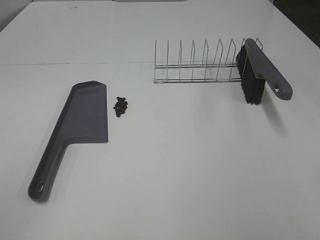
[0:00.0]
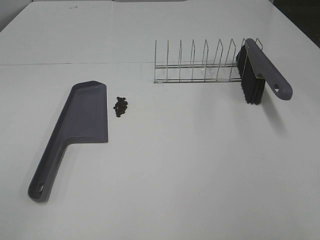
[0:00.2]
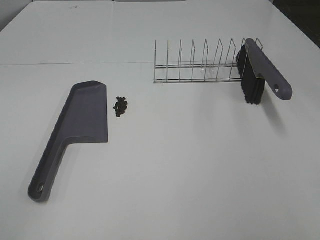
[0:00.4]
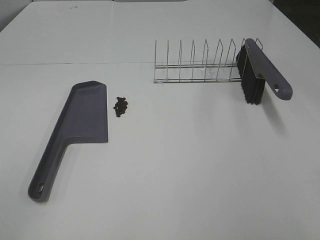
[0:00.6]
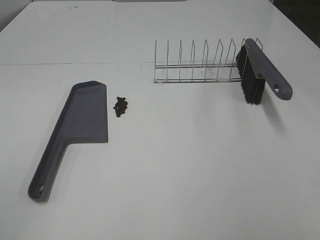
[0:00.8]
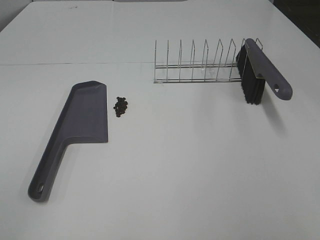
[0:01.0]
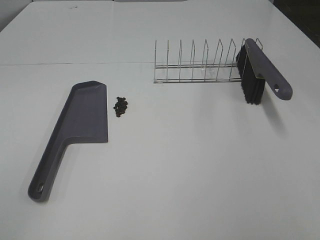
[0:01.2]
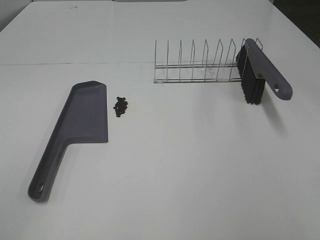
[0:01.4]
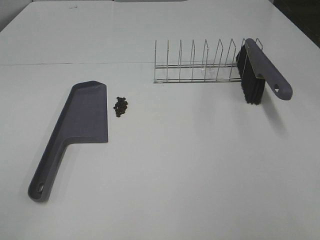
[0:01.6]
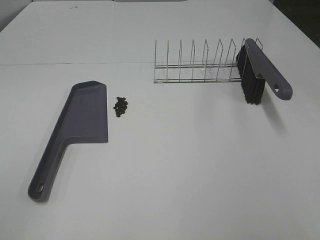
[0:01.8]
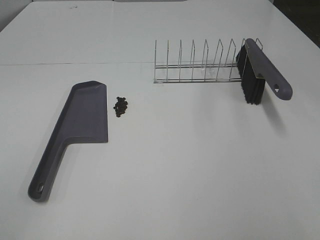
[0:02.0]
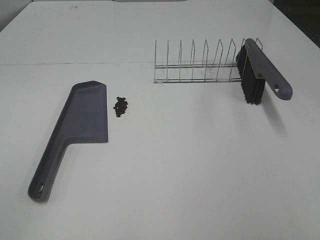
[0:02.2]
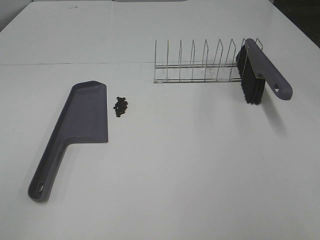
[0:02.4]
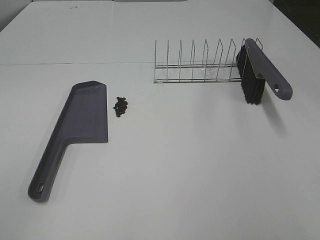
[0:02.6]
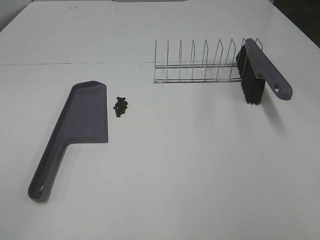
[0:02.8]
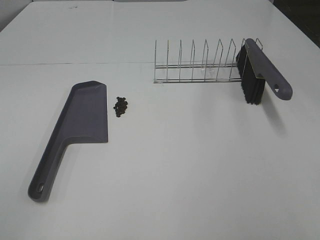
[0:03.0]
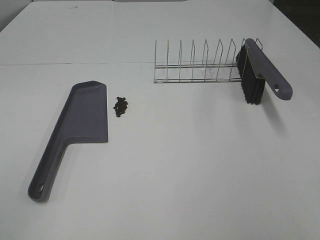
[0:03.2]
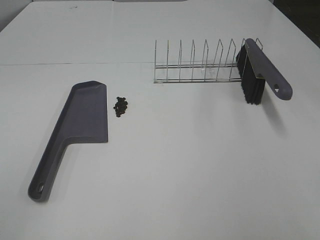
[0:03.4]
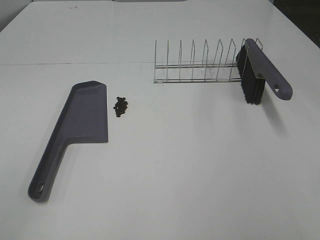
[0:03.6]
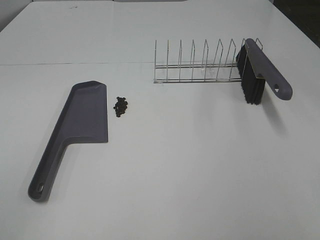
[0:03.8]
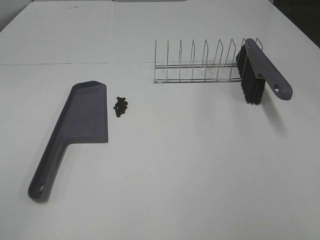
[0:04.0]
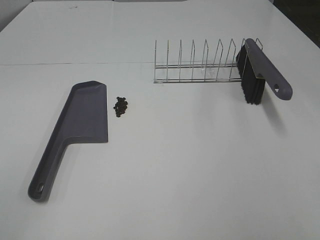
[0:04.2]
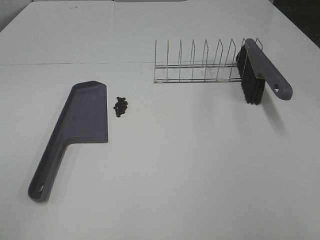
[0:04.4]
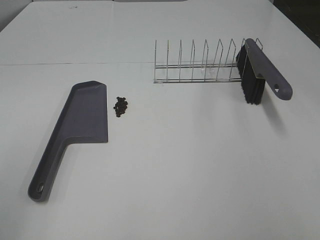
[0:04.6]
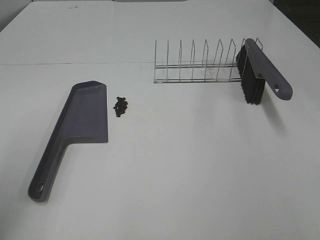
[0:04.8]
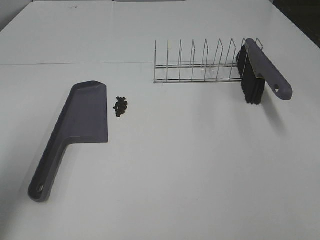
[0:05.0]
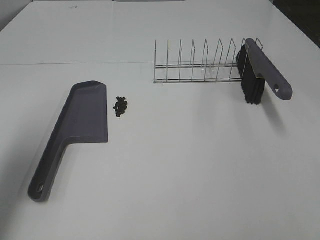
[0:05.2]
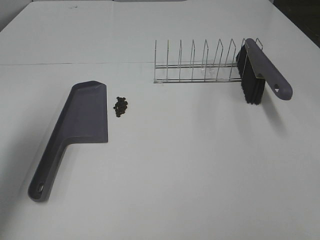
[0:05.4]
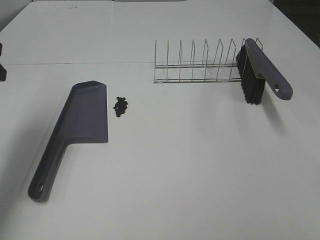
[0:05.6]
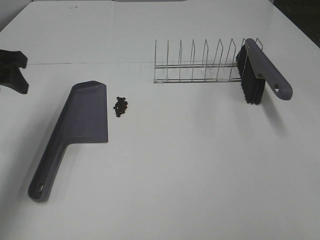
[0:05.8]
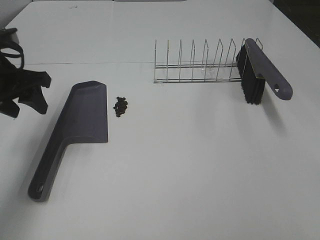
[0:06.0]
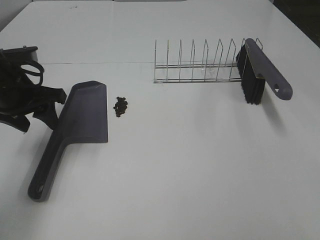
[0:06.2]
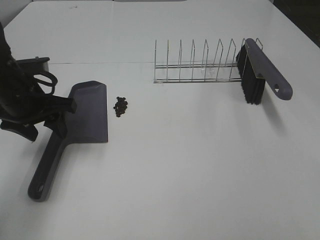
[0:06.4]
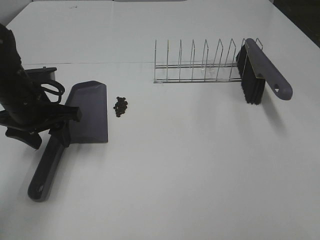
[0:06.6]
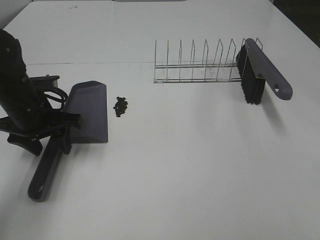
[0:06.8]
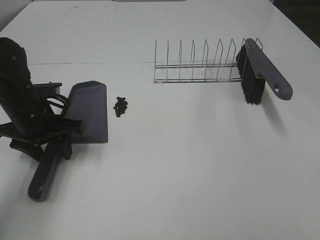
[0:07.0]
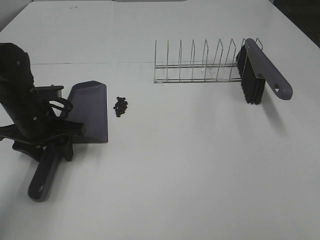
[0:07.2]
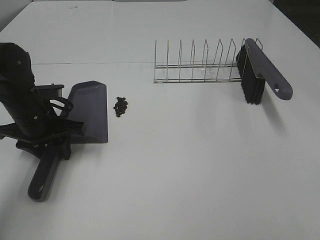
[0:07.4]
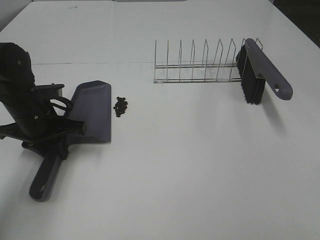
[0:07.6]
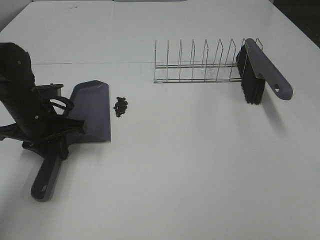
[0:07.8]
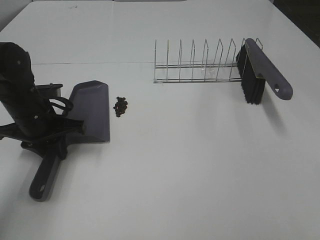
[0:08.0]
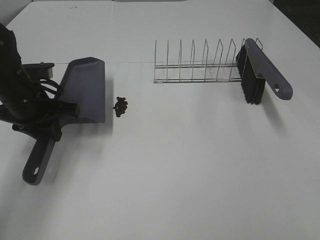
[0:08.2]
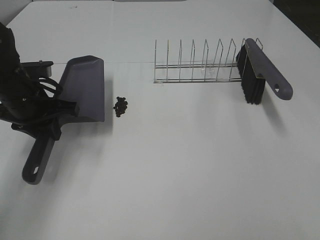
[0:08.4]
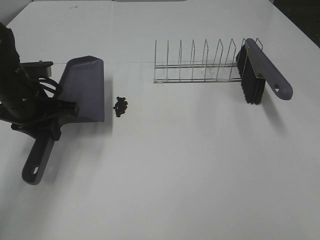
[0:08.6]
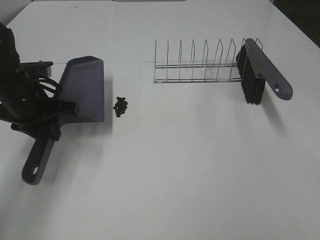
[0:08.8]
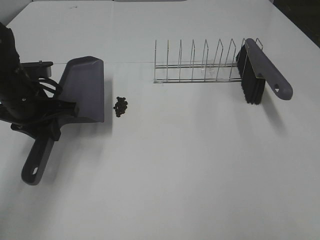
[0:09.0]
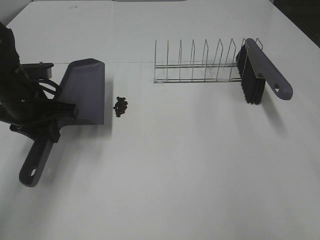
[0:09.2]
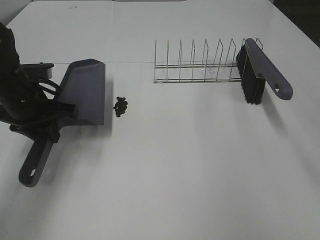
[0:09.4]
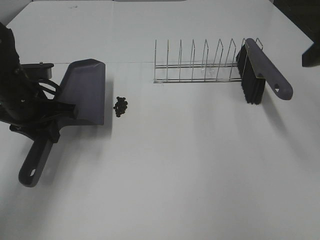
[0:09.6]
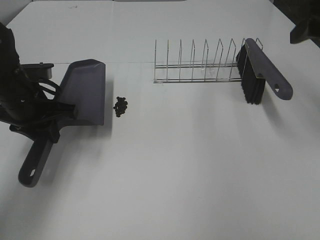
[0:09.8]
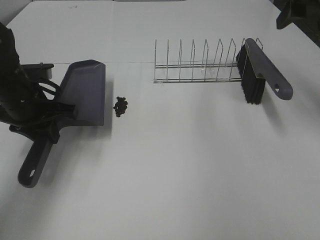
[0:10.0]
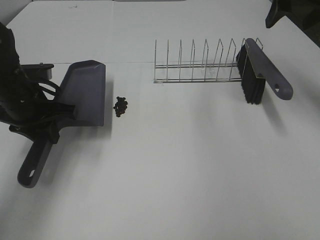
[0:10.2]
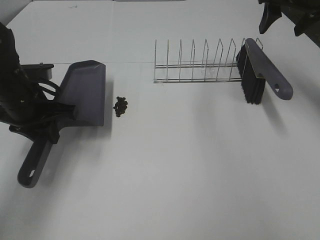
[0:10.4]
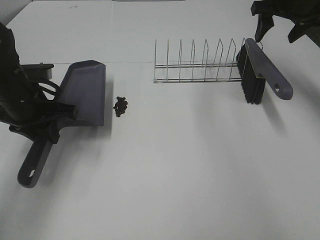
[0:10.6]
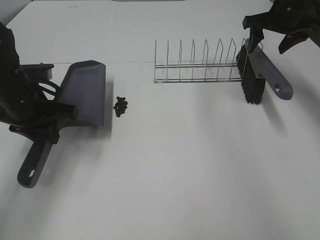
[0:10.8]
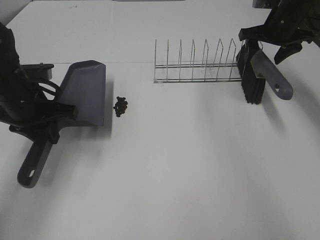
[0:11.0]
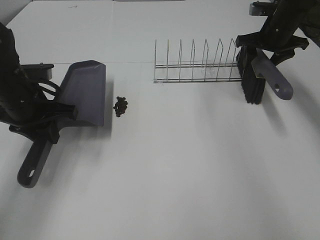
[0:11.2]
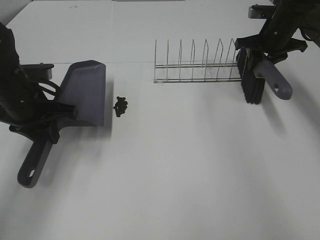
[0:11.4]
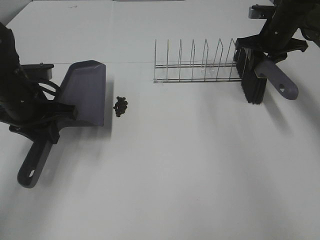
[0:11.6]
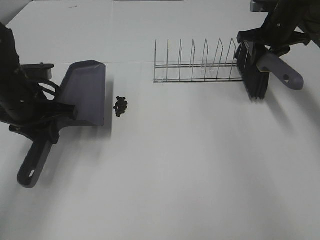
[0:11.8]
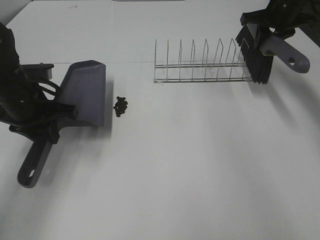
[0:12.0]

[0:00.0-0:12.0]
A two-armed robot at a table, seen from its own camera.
Task of the whole recording: Sweep Coffee Bean.
Step, 0:00.0 to 0:07.6: Left hand: grab the dustpan.
Step, 0:08.8 to 0:11.4: Right hand:grab the broom.
0:00.0 to 0:03.0: Neither gripper changes place.
0:04.4 to 0:06.0: The left gripper goes roughly 30 cm forward.
0:06.0 to 0:07.6: The left gripper goes some 10 cm downward, and closes up.
0:09.0 to 0:10.4: The right gripper moves forward, approximately 40 cm.
0:10.4 to 0:12.0: The right gripper shifts roughly 10 cm forward and downward, and closes.

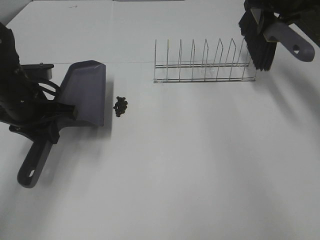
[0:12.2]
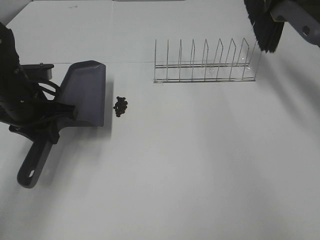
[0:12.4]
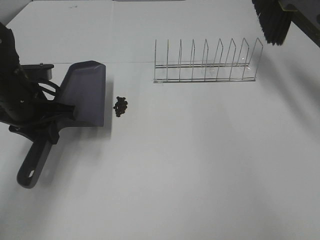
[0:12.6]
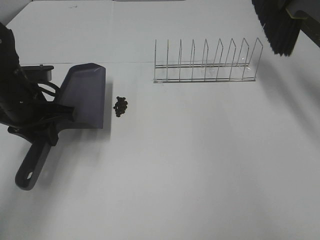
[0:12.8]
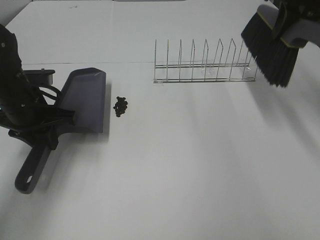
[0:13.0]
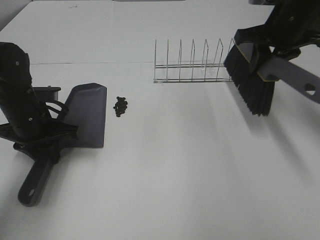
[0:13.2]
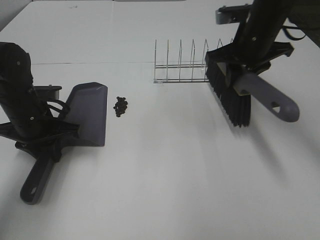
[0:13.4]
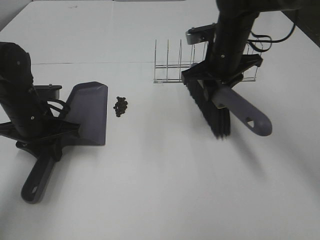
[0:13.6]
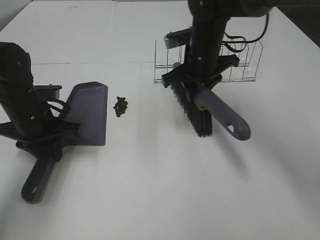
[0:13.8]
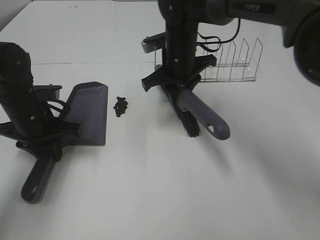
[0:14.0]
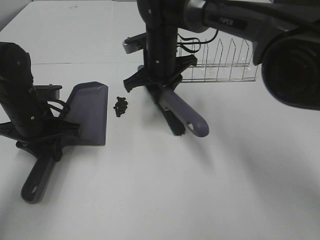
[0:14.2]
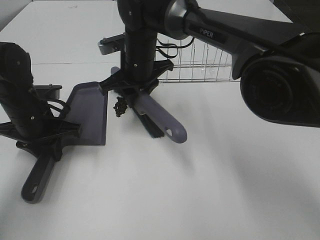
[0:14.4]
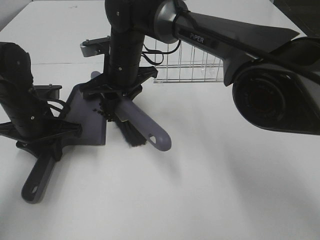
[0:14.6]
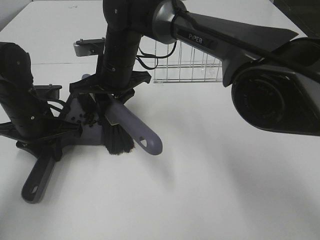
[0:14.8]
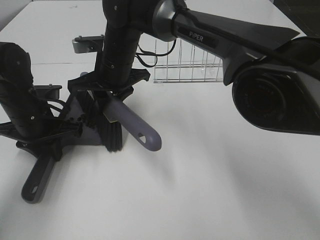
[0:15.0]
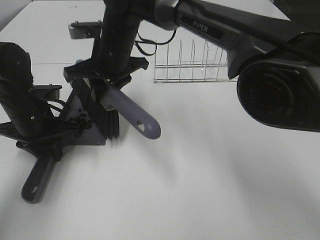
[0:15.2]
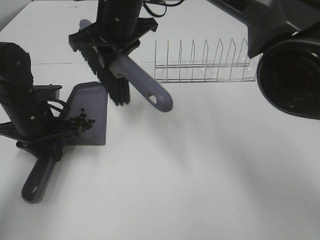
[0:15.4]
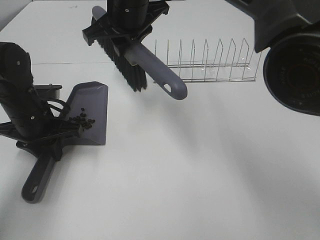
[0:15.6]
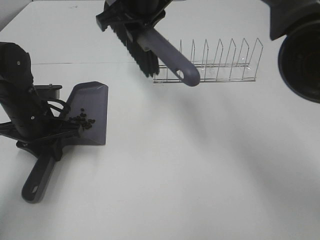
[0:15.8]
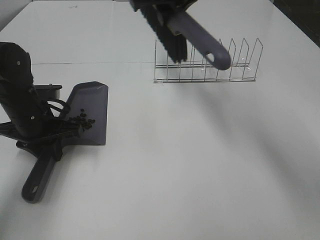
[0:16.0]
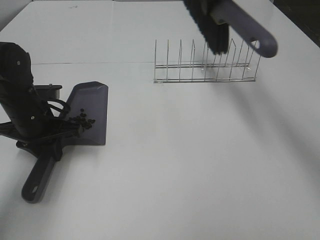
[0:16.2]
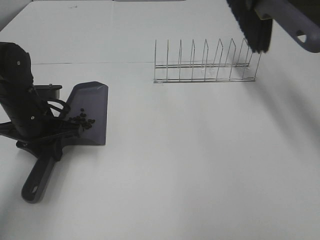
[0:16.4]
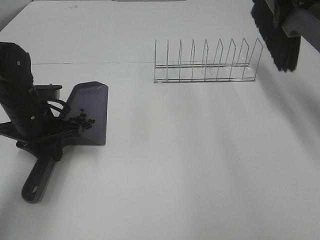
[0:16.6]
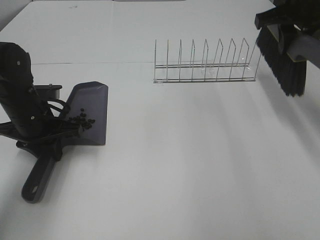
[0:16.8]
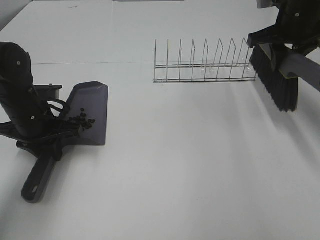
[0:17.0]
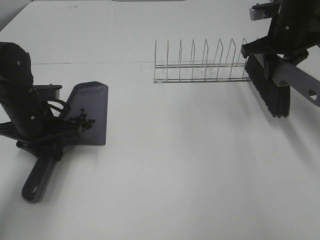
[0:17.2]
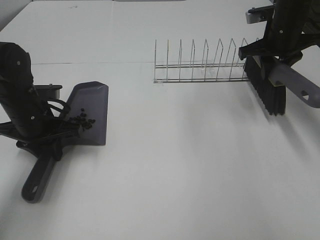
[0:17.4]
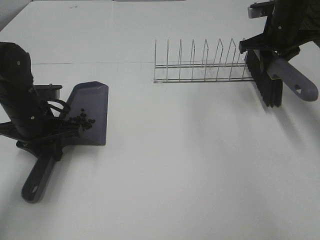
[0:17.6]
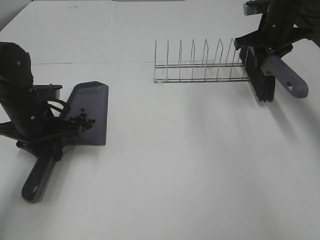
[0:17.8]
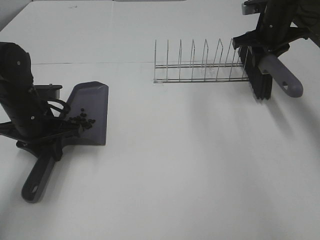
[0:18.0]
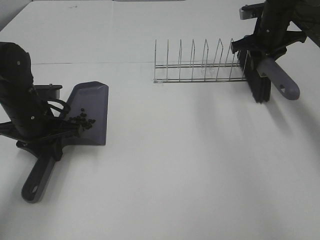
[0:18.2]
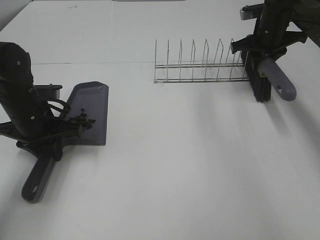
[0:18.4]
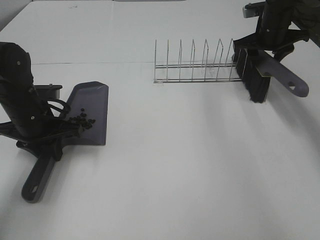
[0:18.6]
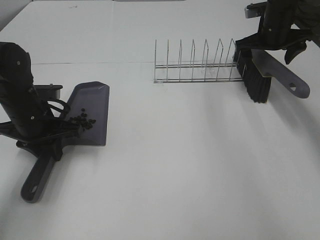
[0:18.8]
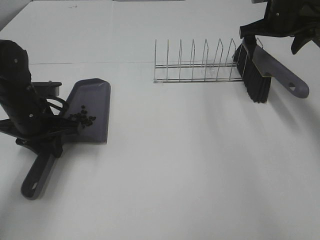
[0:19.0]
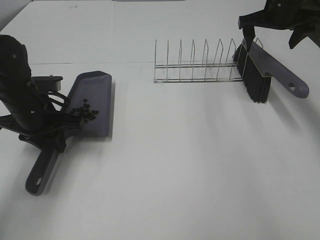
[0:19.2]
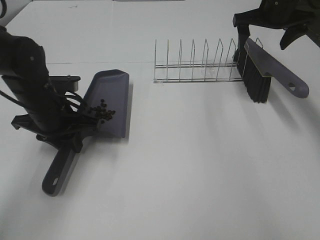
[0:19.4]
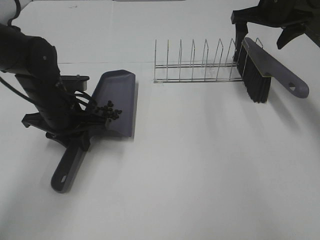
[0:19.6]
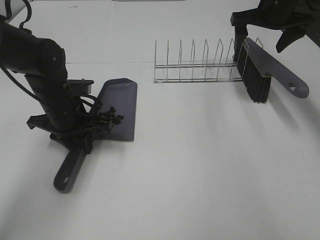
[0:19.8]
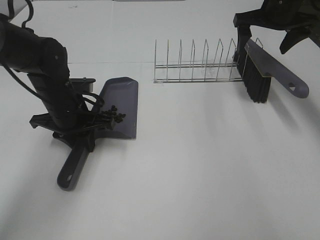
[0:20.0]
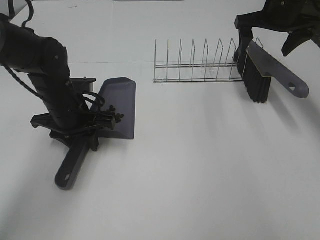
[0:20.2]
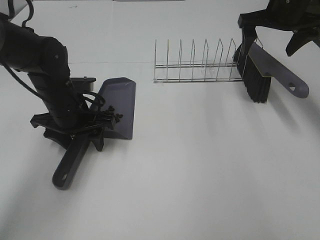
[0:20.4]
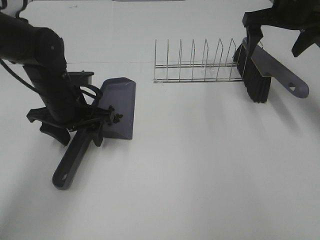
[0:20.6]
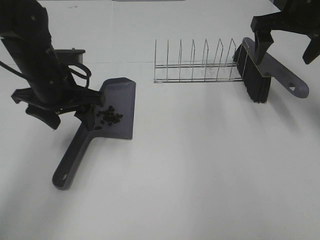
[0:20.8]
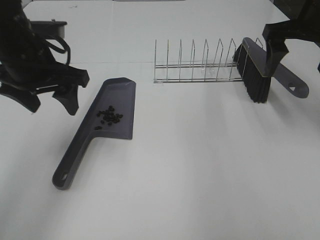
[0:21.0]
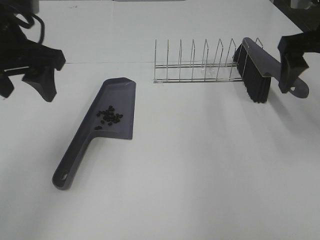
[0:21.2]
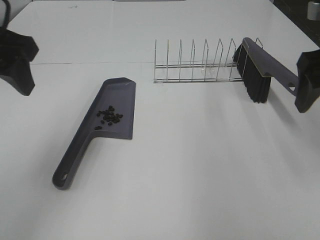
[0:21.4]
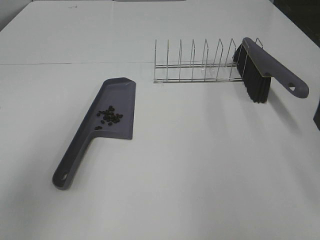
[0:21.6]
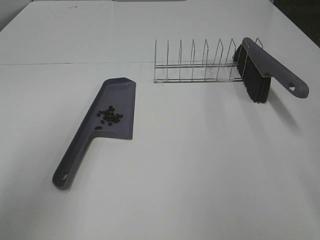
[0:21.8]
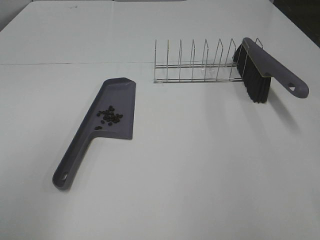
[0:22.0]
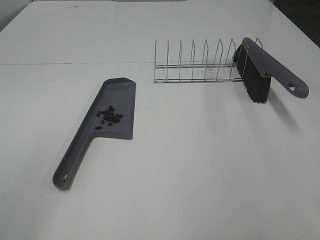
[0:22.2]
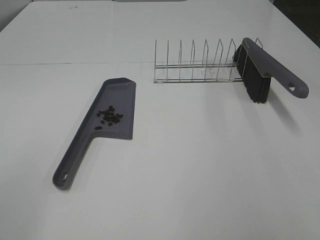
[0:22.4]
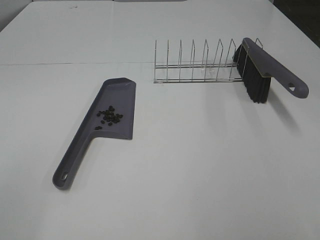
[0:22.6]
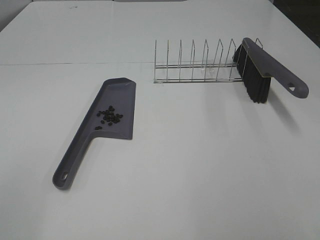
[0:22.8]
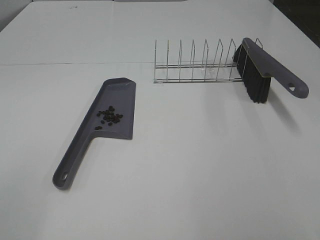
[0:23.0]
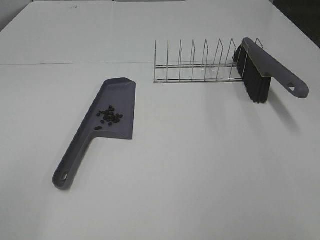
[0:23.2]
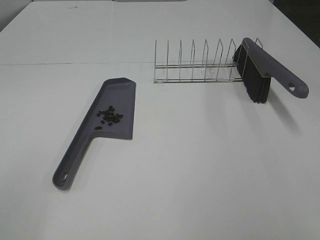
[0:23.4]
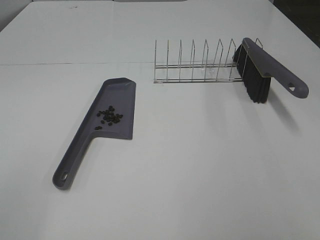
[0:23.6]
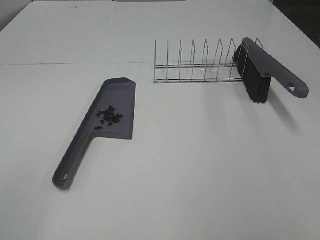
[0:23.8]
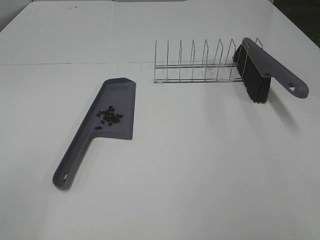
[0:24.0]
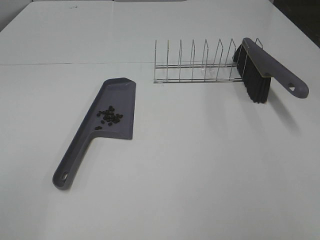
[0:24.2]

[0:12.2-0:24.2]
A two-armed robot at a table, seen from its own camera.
Task of the whole recording: Sweep Coffee Bean.
Step, 0:12.2 to 0:15.4: Right hand:sweep the coffee beans into the dustpan.
Step, 0:15.6 to 0:18.8: Right hand:place the broom on the rack.
Step, 0:19.0 to 0:20.6: Left hand:place the dustpan on the table.
0:12.2 to 0:13.8: The right gripper travels to the left, downward and backward by about 25 cm.
0:13.8 to 0:15.2: The right gripper travels to the left by some 15 cm.
0:15.2 to 0:16.6: The right gripper heads to the right, covering about 30 cm.
0:16.6 to 0:18.2: The right gripper is displaced downward and forward by approximately 15 cm.
0:18.2 to 0:19.8: The right gripper is displaced upward by approximately 5 cm, and opens, while the left gripper is displaced to the right by approximately 5 cm.
0:19.8 to 0:21.2: The left gripper travels upward by some 20 cm, and opens, while the right gripper heads backward, covering roughly 15 cm.
0:21.2 to 0:22.6: The right gripper travels backward by approximately 30 cm; the left gripper goes some 30 cm backward and to the left.
